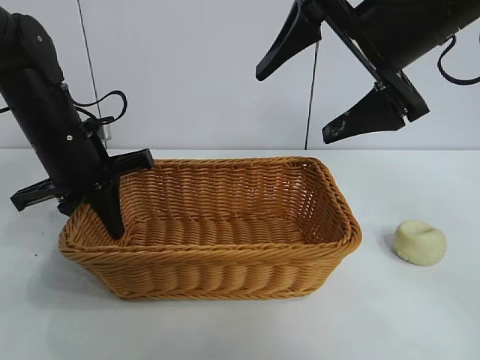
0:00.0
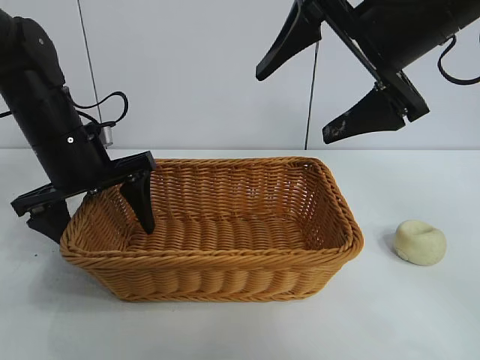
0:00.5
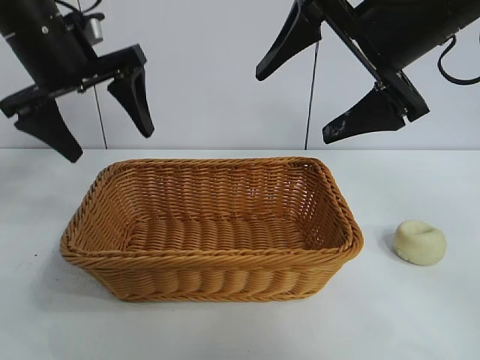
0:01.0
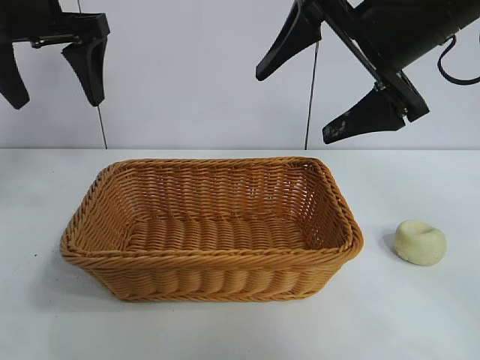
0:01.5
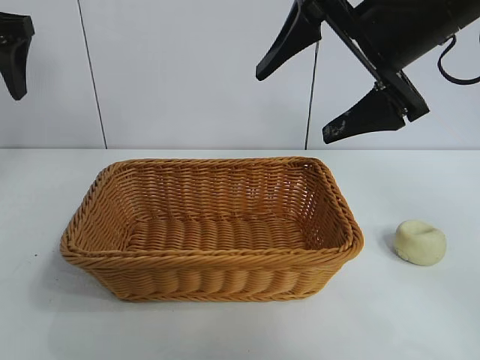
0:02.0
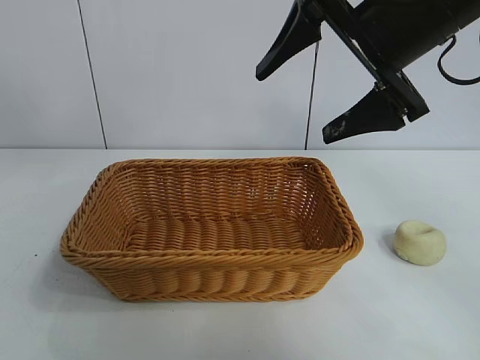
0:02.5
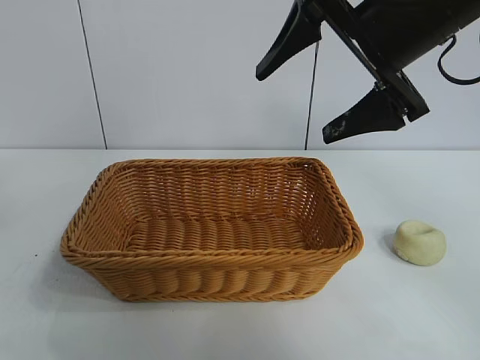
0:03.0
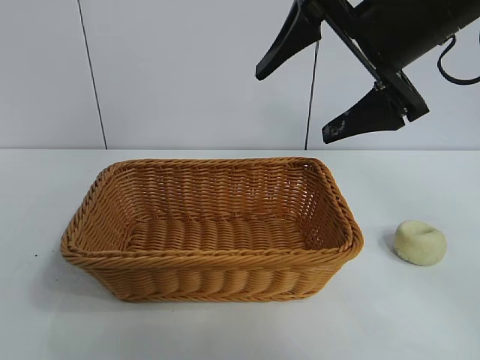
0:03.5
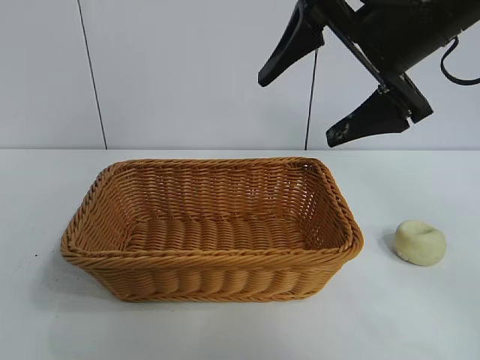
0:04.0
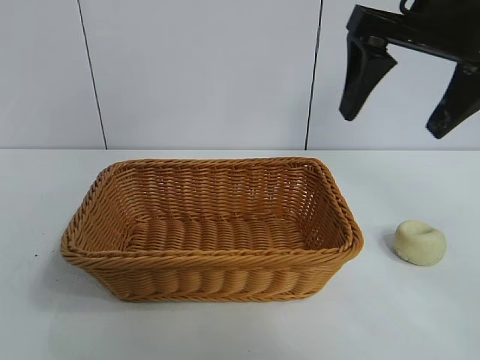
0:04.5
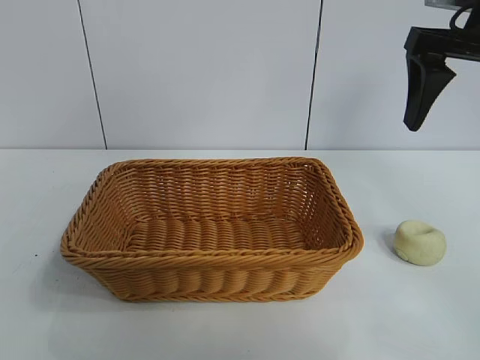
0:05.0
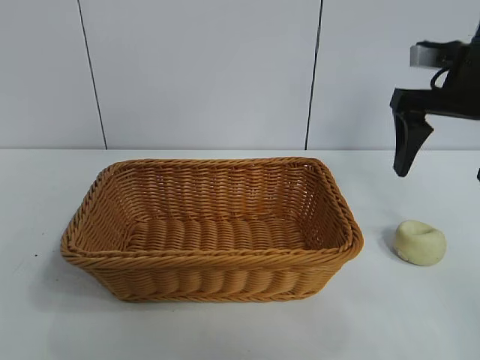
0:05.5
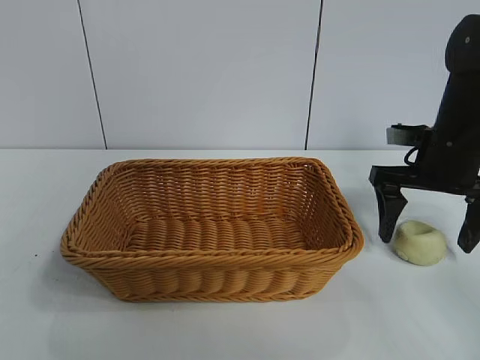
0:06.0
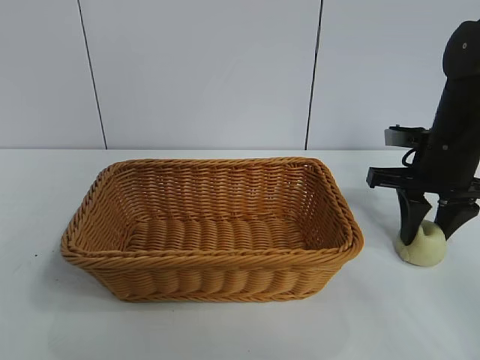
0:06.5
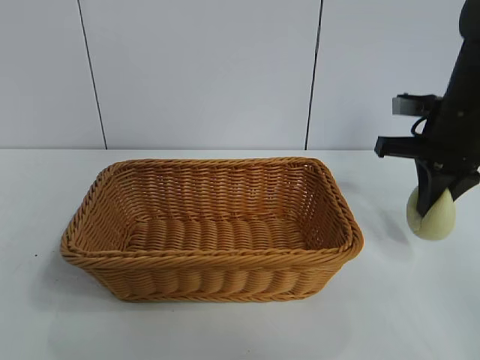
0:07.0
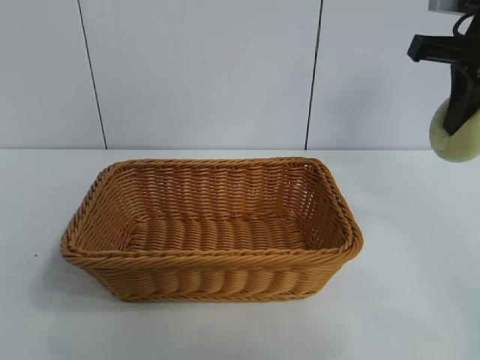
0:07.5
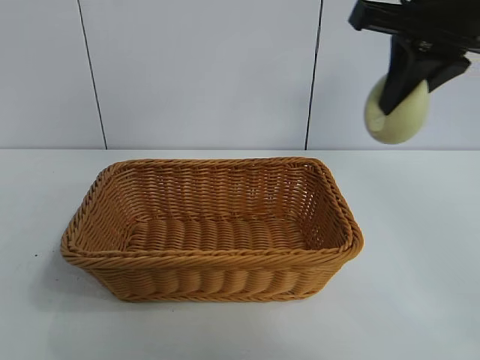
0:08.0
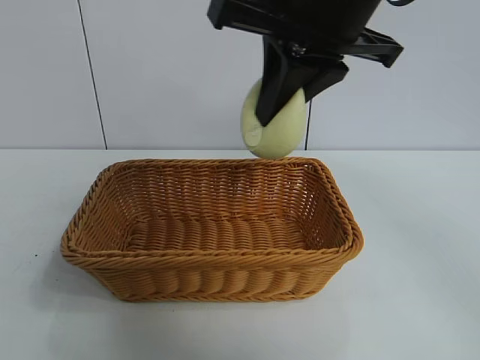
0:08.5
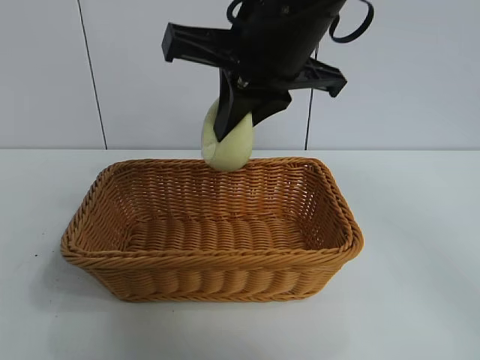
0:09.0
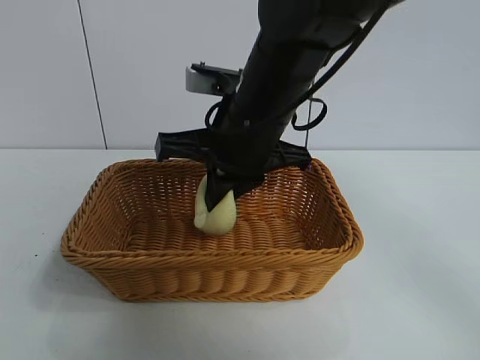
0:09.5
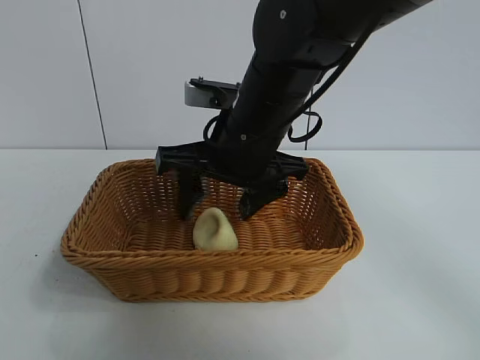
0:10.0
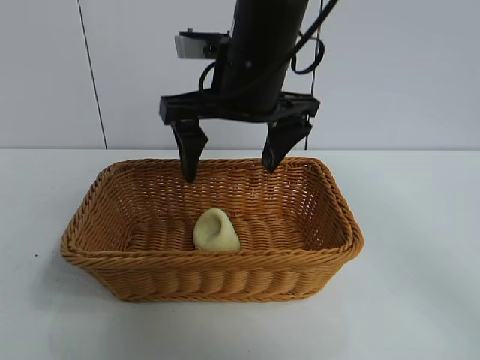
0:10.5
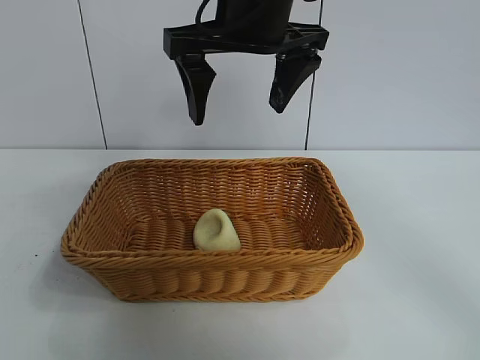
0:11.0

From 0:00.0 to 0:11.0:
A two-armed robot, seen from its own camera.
Task of the whole recording: pick up the egg yolk pastry and put it into the basket.
Step, from 0:00.5 to 0:06.5: Grasp egg yolk pastry with right gripper.
Step, from 0:07.0 to 0:09.5: Place the egg yolk pastry in the basket with right gripper.
